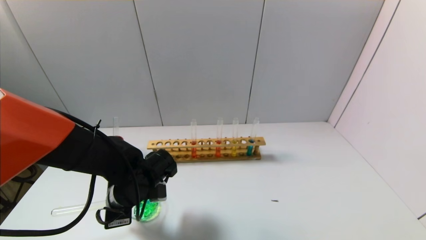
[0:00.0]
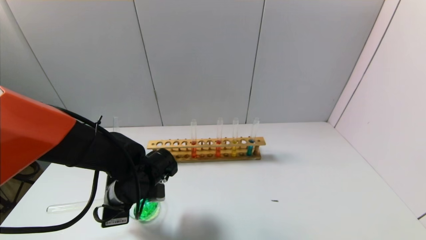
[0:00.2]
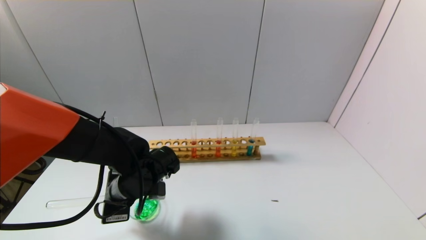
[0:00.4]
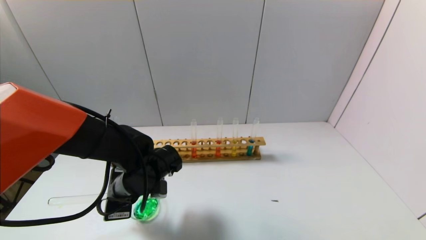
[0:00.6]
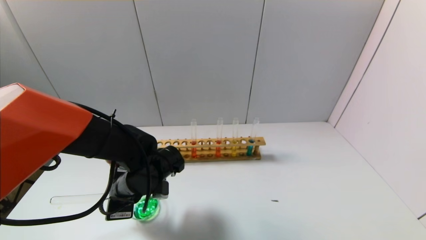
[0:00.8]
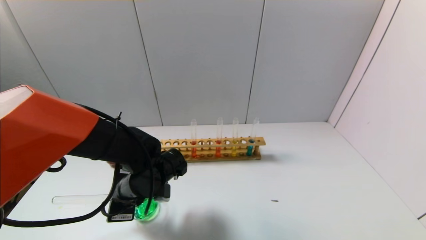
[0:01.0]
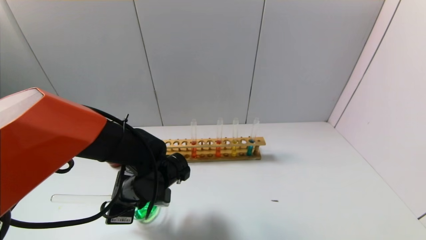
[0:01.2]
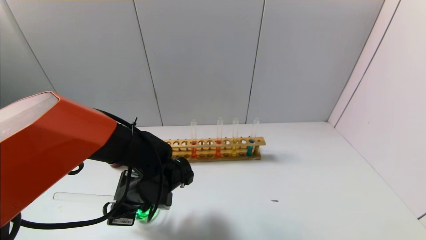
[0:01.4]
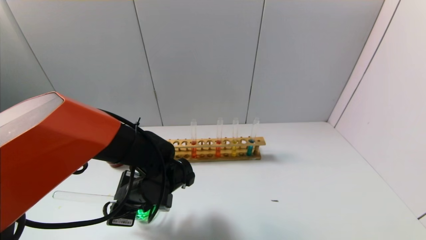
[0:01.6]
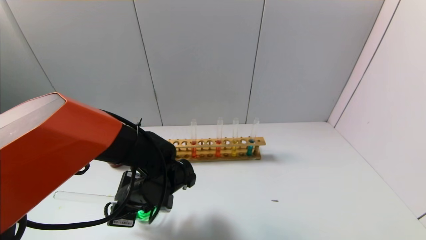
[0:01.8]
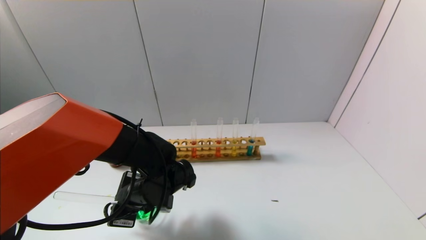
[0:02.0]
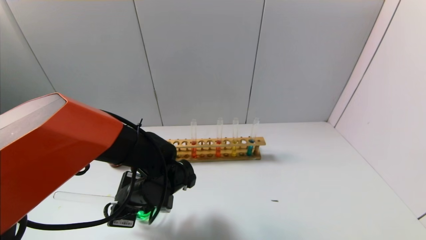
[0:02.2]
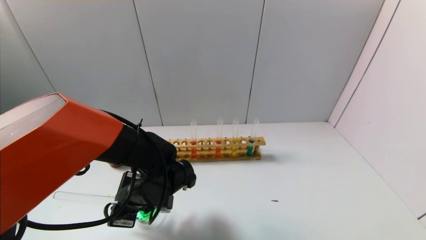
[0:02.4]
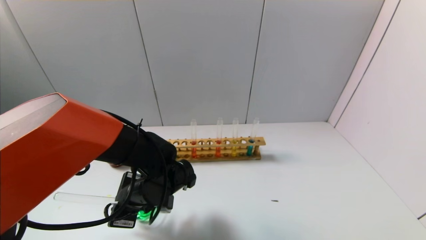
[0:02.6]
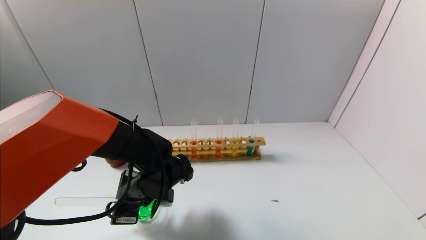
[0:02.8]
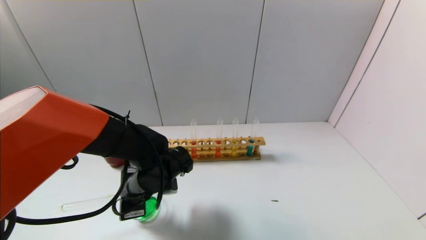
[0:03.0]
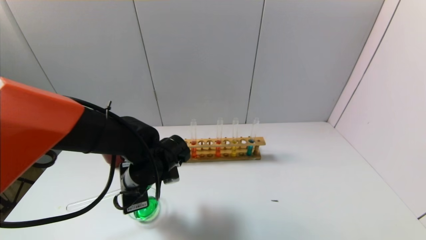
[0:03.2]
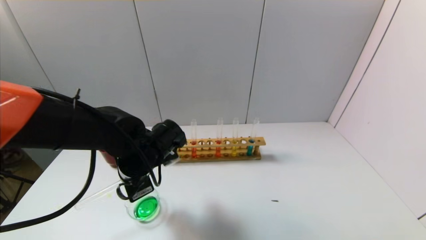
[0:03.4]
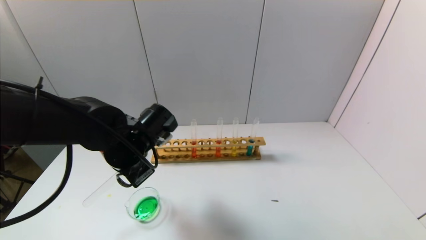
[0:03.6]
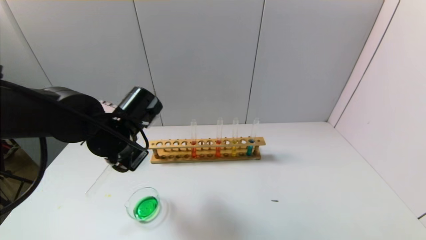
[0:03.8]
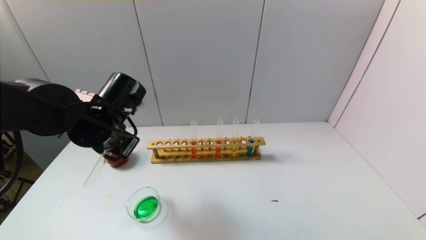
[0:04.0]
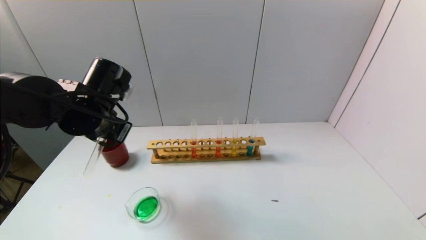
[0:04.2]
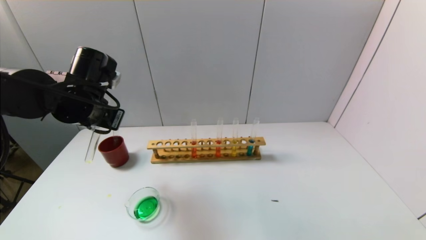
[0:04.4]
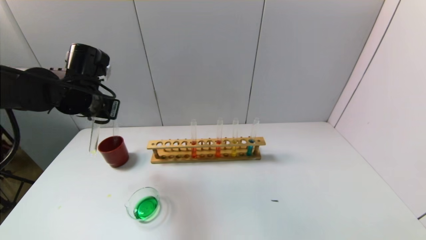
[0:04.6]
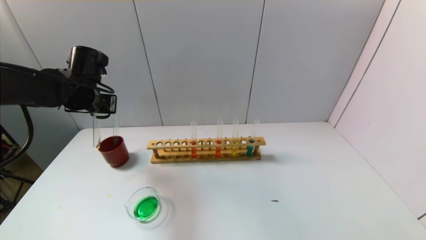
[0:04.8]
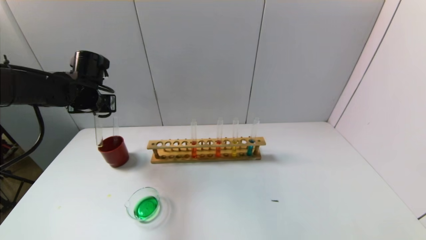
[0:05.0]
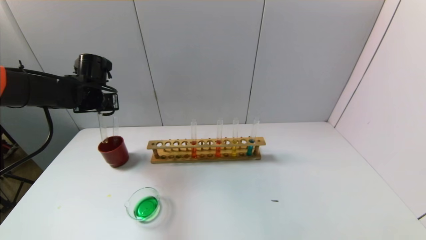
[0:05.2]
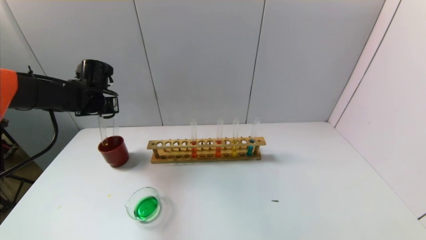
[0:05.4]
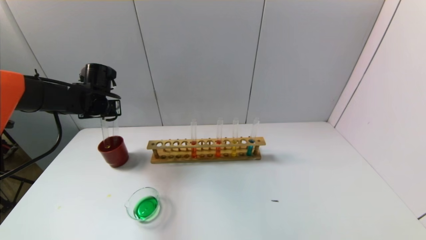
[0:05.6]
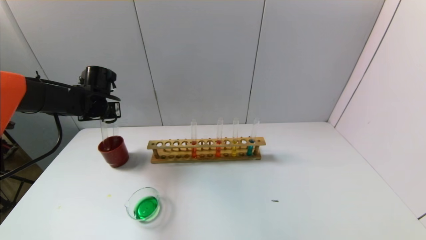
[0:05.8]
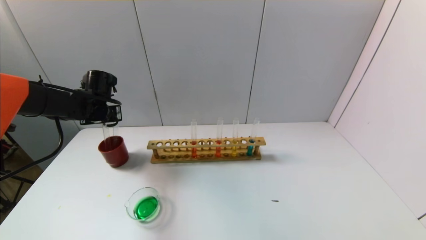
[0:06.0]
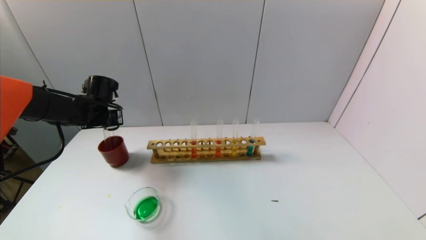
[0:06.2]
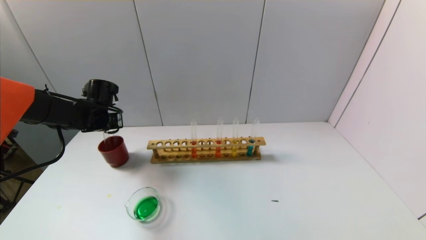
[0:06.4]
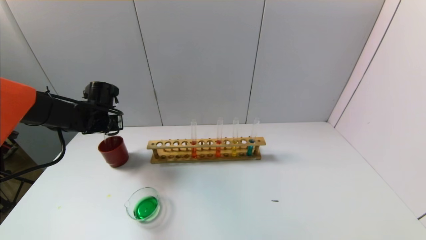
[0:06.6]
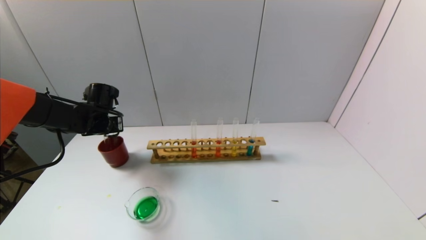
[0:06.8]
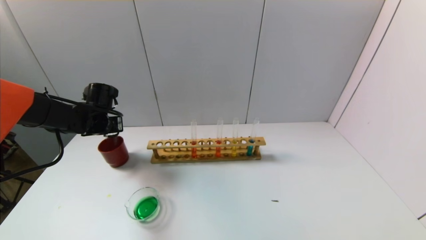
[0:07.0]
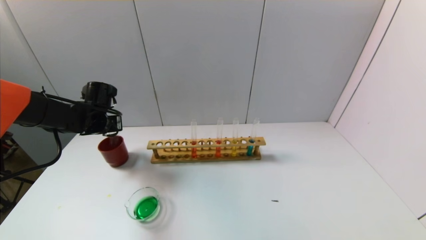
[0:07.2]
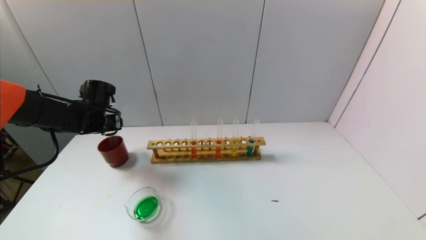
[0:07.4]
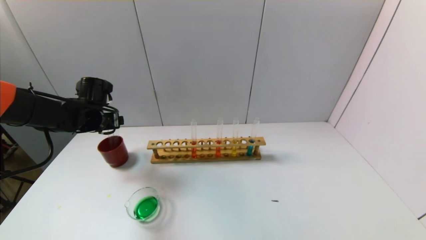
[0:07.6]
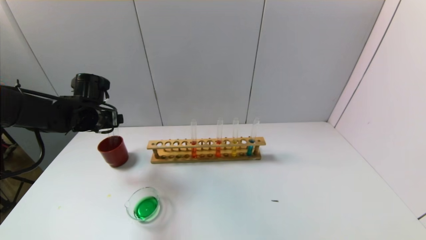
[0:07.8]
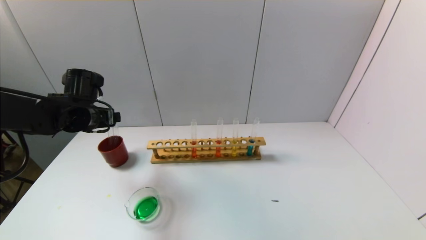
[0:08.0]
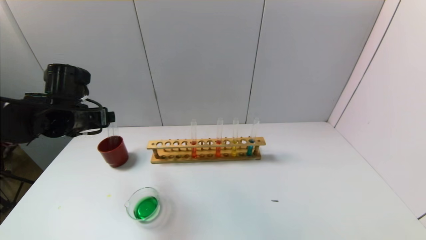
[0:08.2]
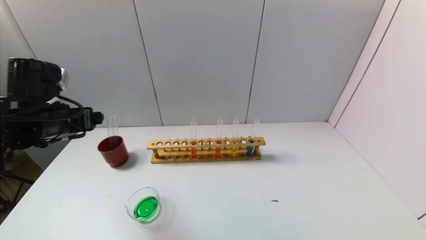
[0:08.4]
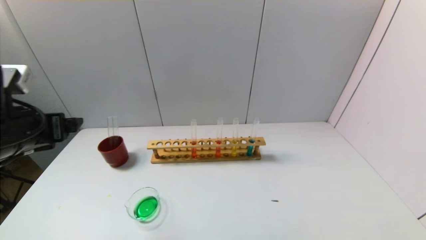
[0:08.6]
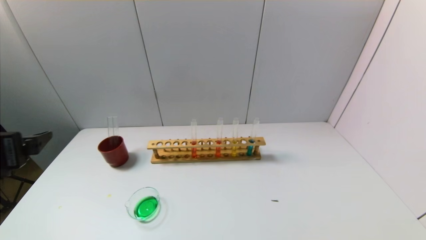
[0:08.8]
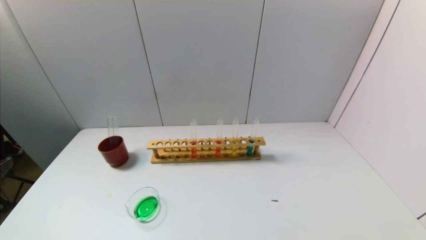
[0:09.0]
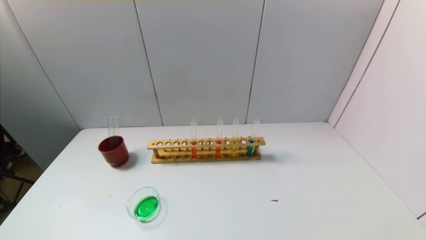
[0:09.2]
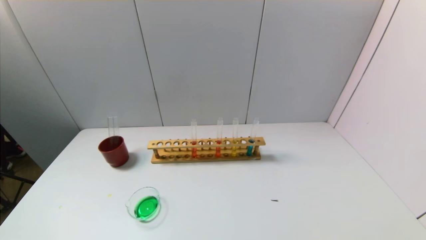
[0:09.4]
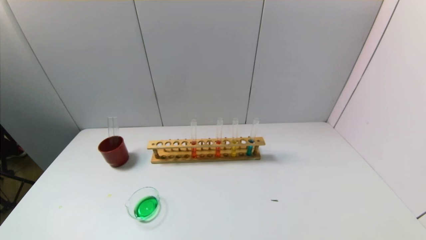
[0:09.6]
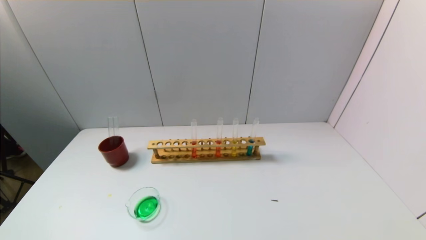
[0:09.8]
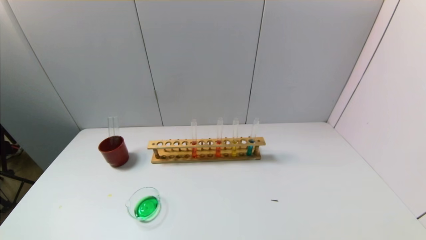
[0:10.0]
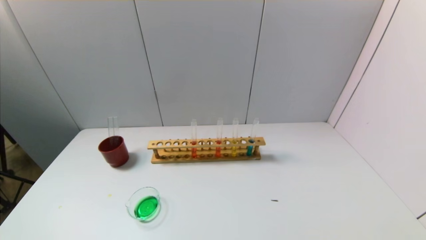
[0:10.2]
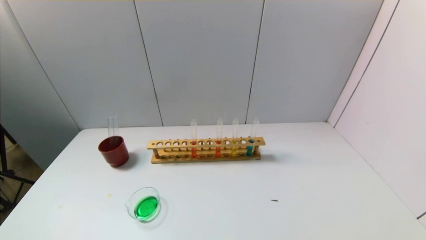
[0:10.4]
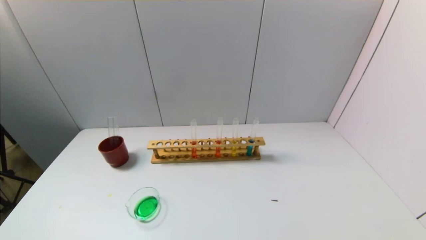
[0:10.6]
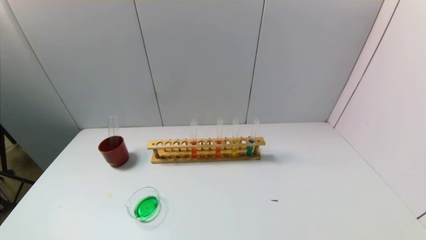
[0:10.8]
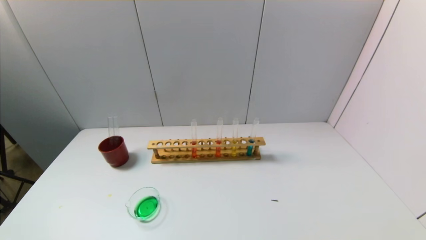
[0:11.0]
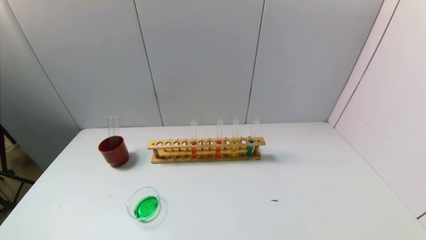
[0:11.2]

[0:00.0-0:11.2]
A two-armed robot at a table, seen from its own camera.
Task of the whole recording: pick up the test tube with yellow pigment and the test tube with blue pigment by grippers and pour them into the beaker.
Step, 0:00.0 to 0:03.2: Pour the yellow reagent into the graduated cylinder with the left gripper.
Step, 0:03.4 to 0:07.2: Place the test tube into the brown cup with the left gripper.
0:00.0 to 0:01.6: The grippers stay close to where they were, moving slightly.
0:03.2 to 0:04.8: The left gripper heads to the left, upward and forward, covering approximately 20 cm.
0:04.8 to 0:06.4: The left gripper is displaced downward by roughly 10 cm.
0:06.4 to 0:08.0: The left gripper is displaced backward by roughly 5 cm, and opens its fingers.
0:08.0 to 0:09.6: The left gripper moves backward, roughly 40 cm.
